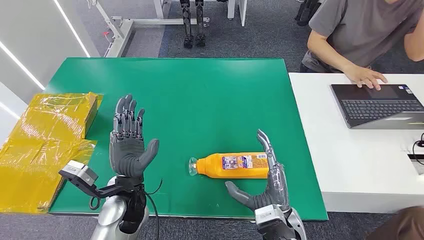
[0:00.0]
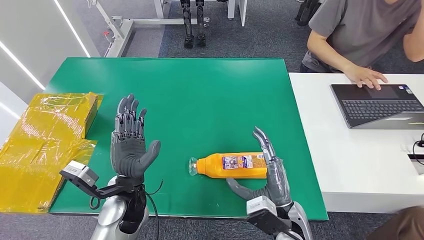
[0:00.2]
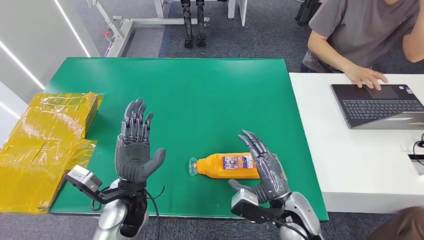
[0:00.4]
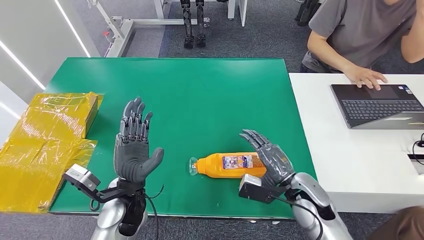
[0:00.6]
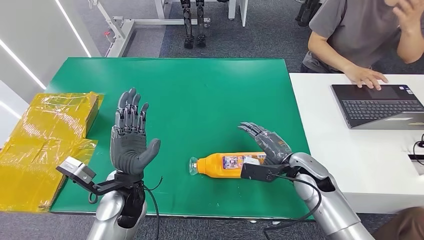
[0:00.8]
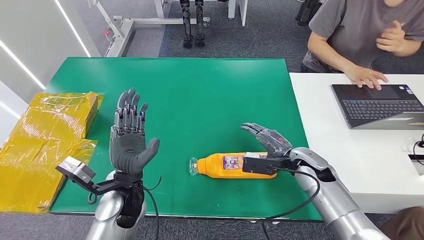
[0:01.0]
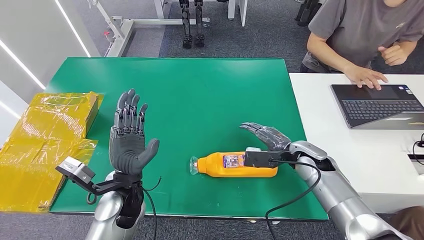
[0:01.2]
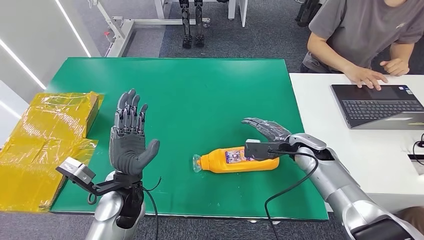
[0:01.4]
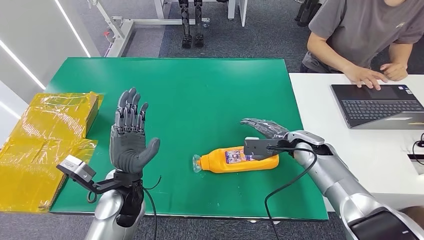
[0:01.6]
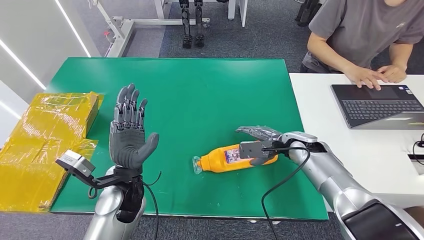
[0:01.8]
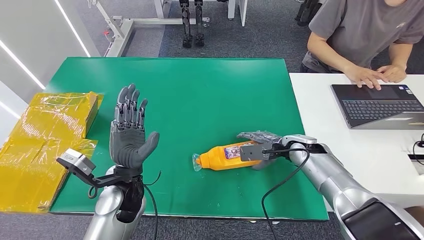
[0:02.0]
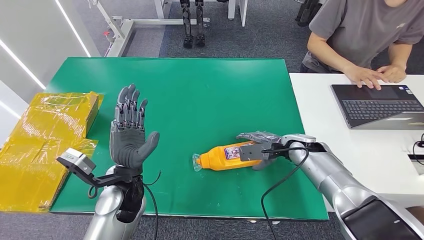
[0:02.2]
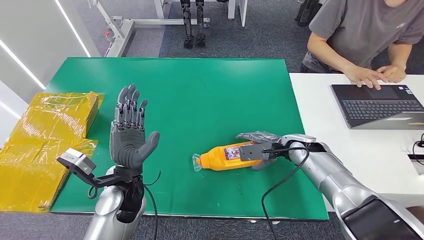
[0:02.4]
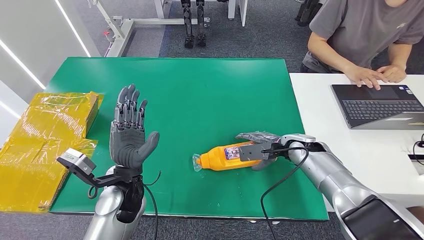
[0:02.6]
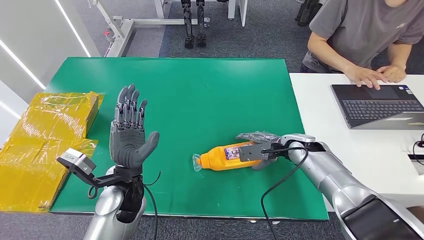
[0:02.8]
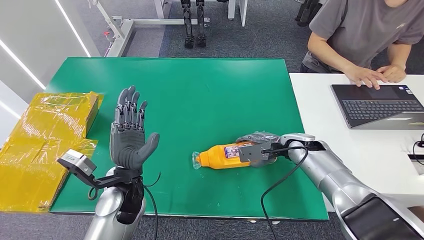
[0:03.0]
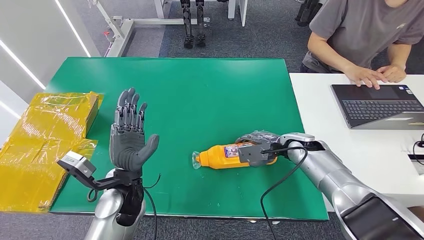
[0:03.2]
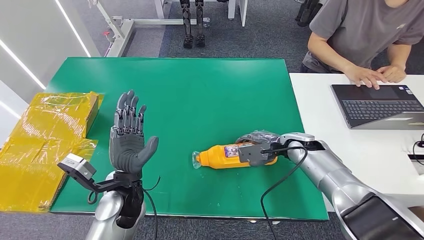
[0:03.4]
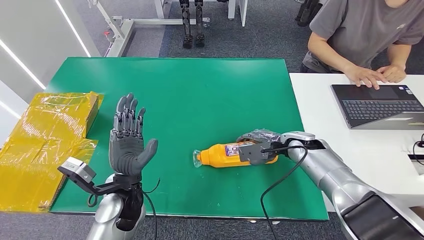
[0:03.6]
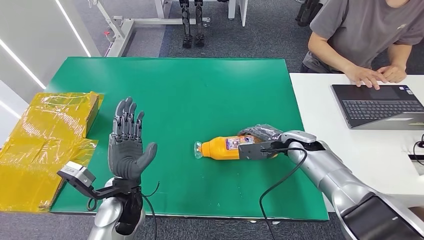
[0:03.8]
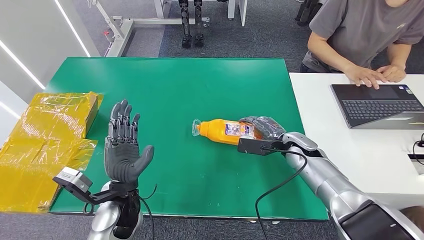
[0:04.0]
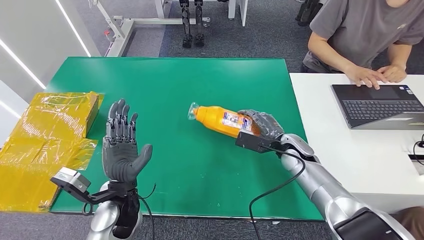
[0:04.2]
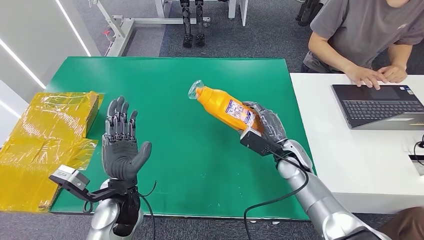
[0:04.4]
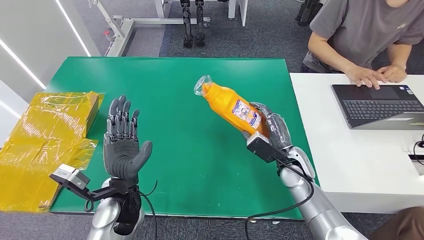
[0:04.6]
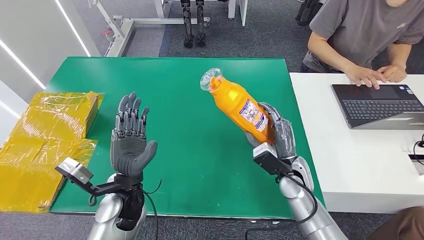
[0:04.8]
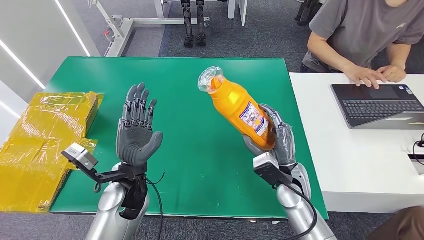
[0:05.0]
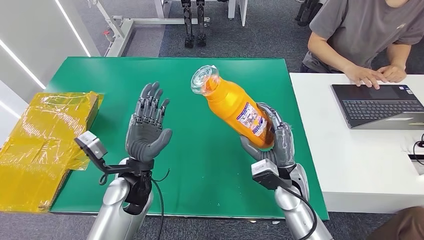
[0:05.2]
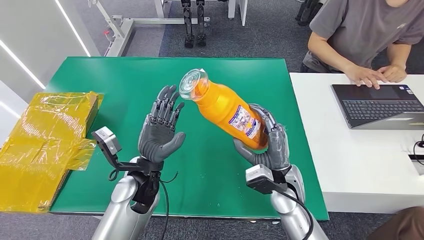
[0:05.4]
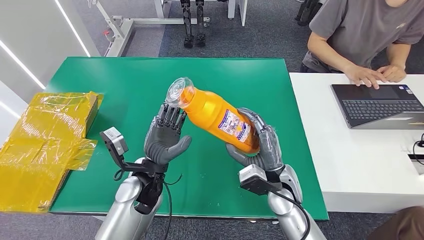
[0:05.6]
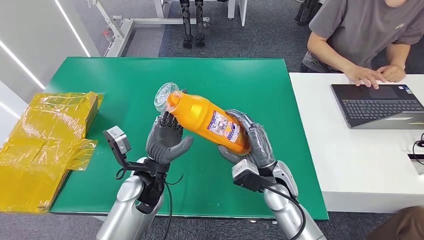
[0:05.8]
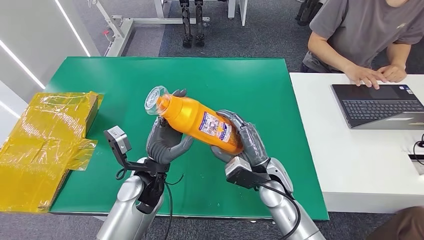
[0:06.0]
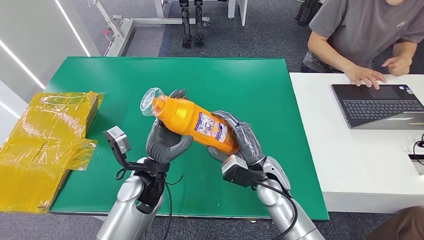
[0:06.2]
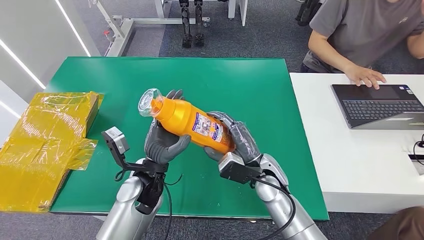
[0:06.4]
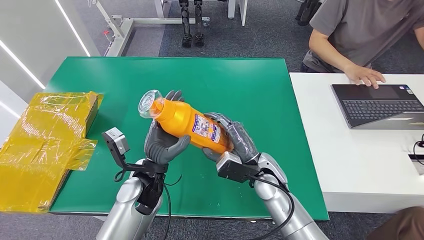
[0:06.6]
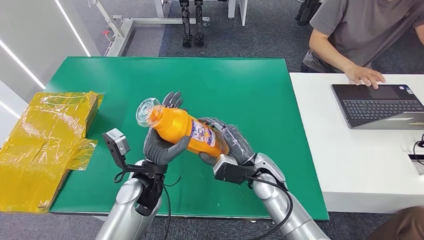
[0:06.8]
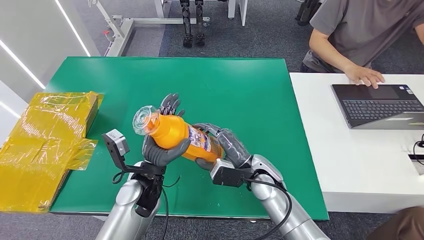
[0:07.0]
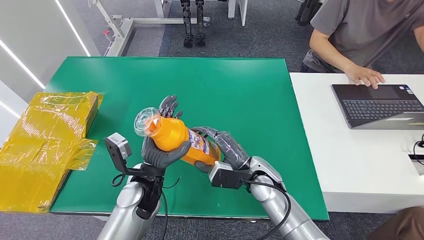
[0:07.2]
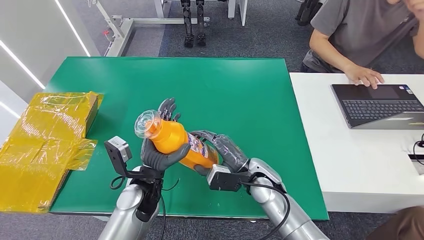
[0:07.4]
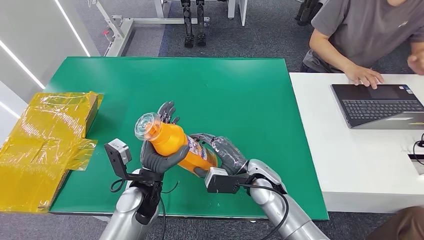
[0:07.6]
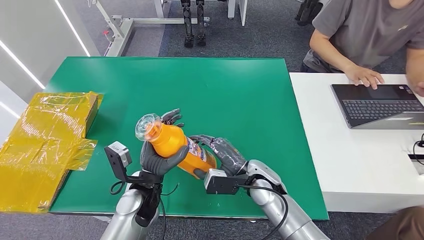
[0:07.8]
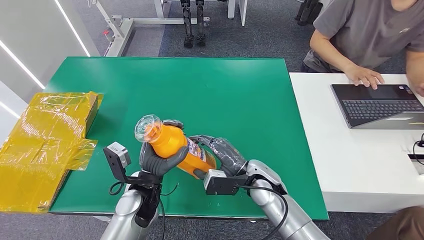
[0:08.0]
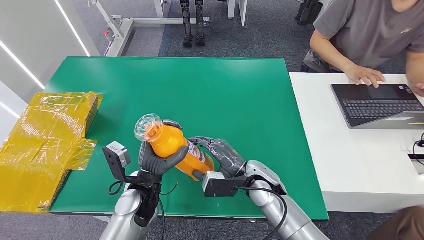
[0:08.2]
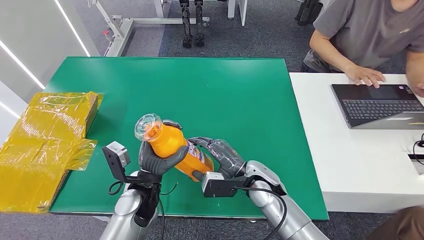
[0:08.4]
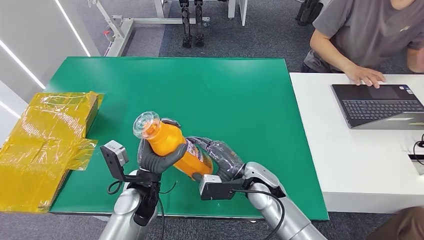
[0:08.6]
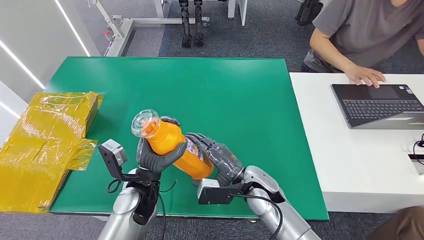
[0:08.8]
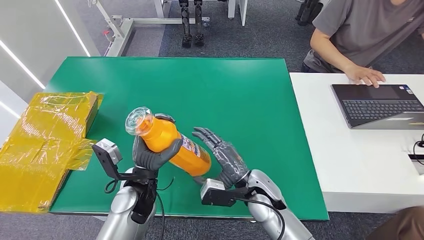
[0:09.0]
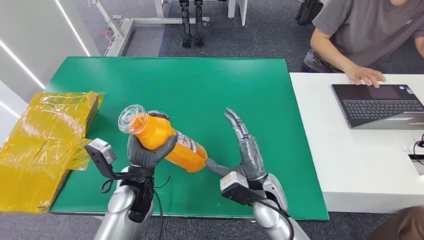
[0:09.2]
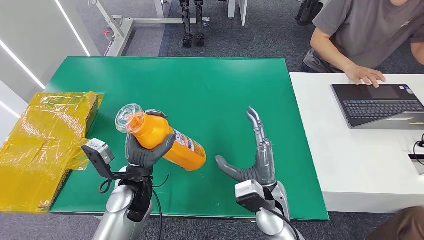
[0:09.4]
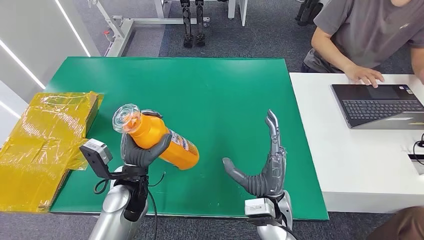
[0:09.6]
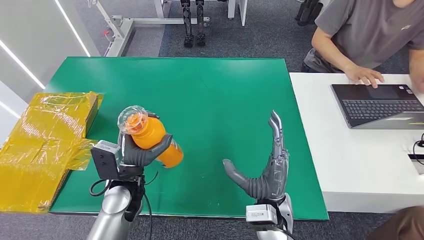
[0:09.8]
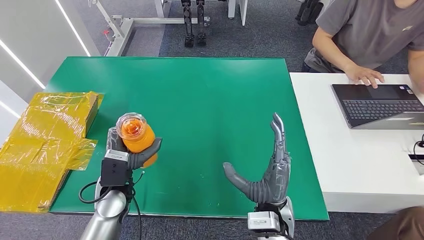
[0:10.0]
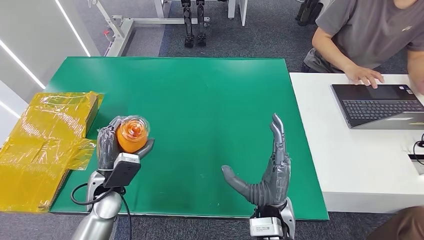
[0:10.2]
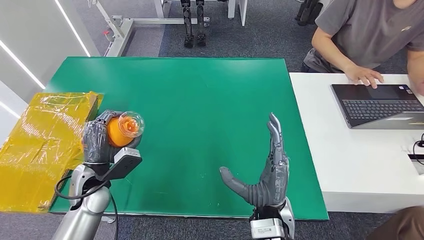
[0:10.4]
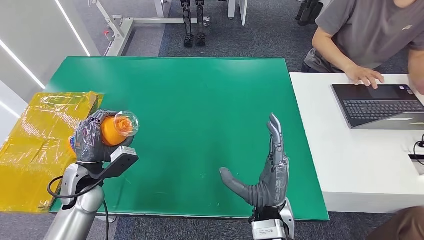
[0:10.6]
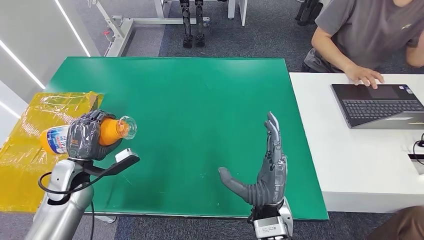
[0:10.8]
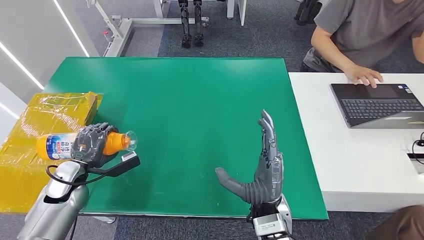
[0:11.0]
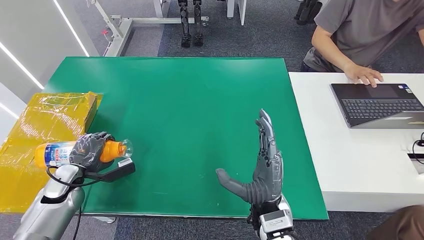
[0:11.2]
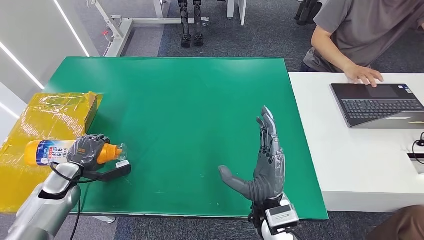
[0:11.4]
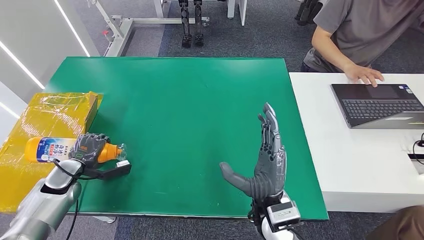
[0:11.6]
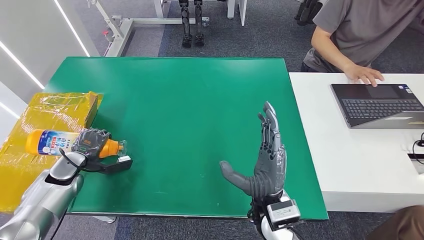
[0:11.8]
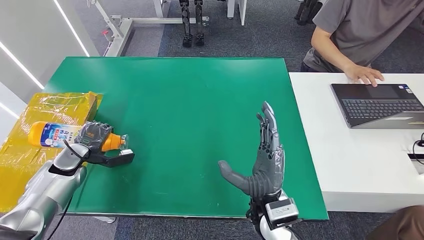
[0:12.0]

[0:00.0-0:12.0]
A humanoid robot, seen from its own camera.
Step, 0:00.0 to 0:06.4: Pick up the bottle from the table.
0:01.6 to 0:03.0: The hands move only a little.
0:03.0 to 0:04.4: The right hand shifts by some 5 cm.
0:04.4 to 0:06.0: The left hand heads to the right, covering roughly 5 cm; the right hand shifts some 10 cm to the left and backward.
0:07.6 to 0:09.0: The hands stay close to where they were, moving slightly.
0:09.0 to 0:10.4: The right hand is displaced backward by approximately 5 cm. The left hand heads to the left, covering some 15 cm.
0:10.4 to 0:12.0: The left hand heads to the left and forward, covering roughly 15 cm.

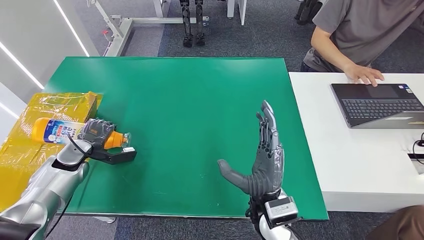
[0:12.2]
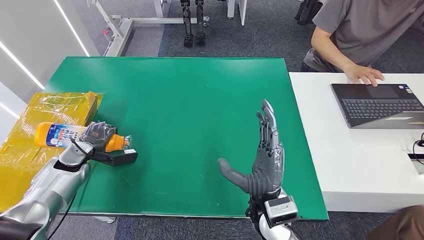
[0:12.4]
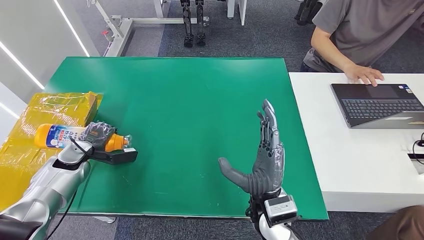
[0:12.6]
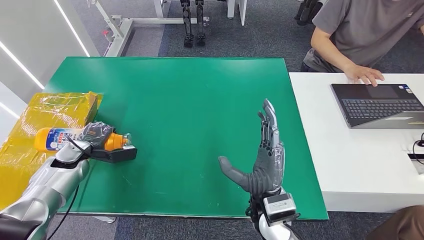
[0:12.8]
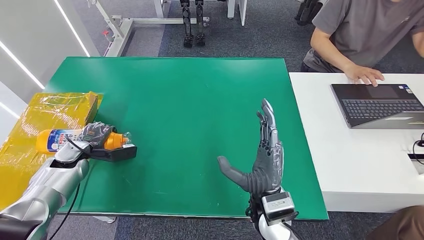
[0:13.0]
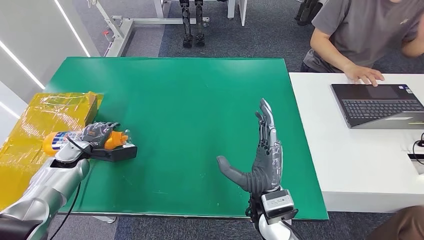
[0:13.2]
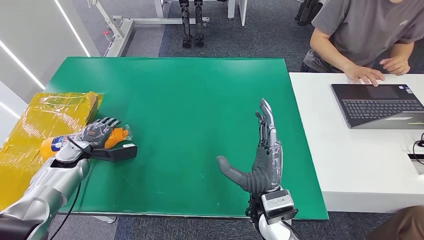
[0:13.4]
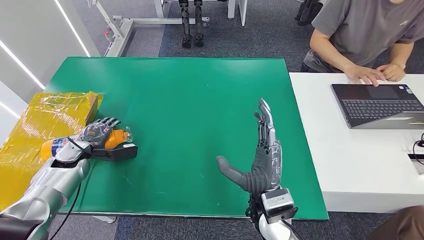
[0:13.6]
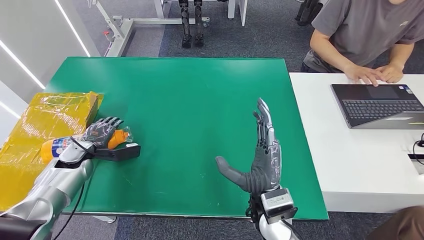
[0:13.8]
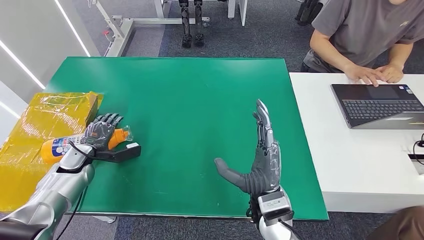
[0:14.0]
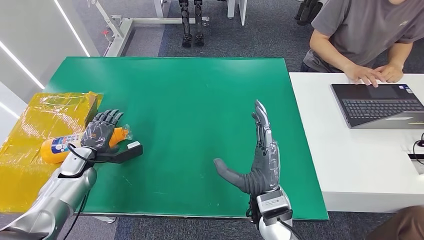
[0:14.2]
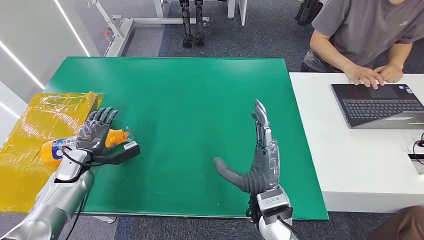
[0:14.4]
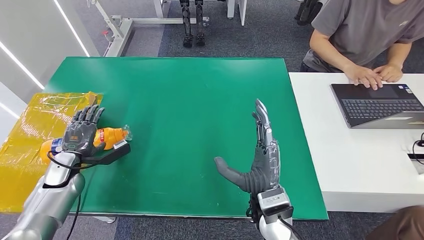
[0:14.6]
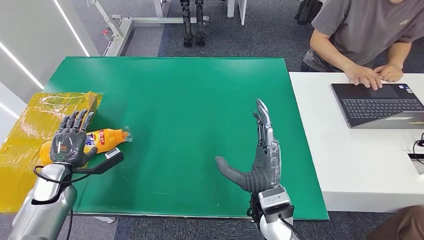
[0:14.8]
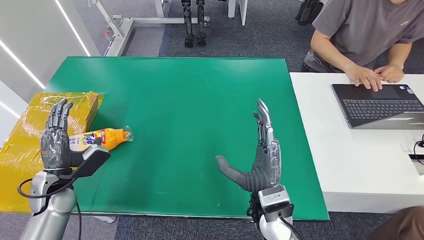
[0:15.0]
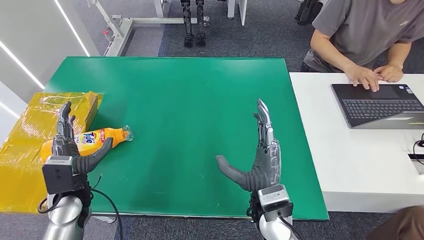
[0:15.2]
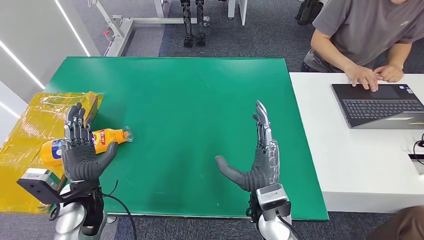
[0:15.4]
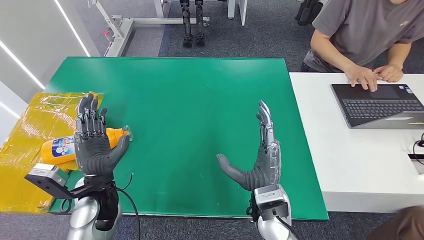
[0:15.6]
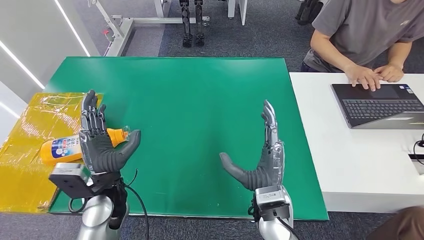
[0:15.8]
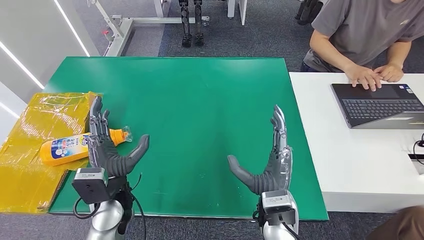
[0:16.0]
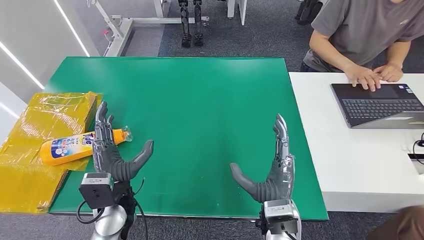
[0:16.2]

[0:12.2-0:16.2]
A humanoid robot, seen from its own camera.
Step, 0:12.2 to 0:16.0: Turn the bottle to the front side.
0:12.2 to 0:13.6: There are only small adjustments of the hands.
0:13.6 to 0:14.8: The left hand travels backward by some 10 cm.
0:14.8 to 0:16.2: The left hand shifts roughly 20 cm to the right.
